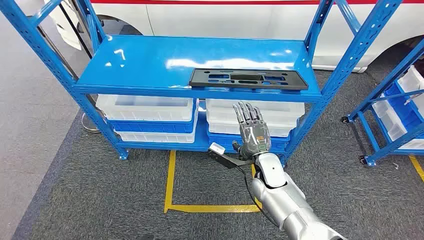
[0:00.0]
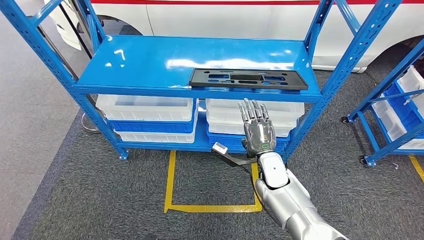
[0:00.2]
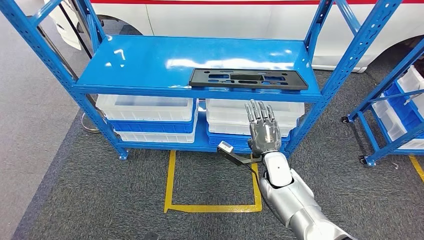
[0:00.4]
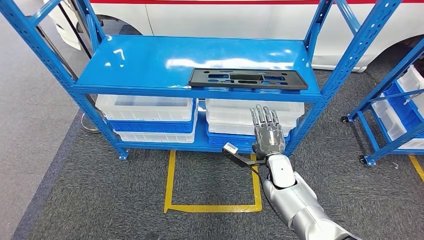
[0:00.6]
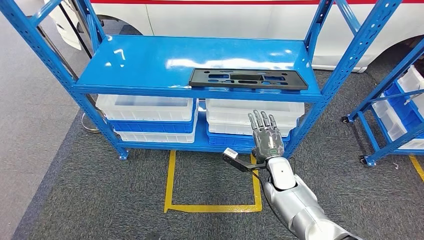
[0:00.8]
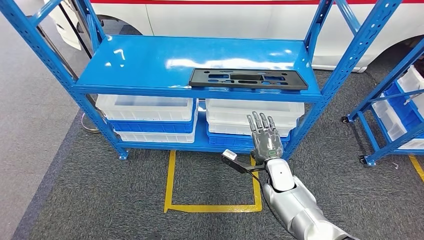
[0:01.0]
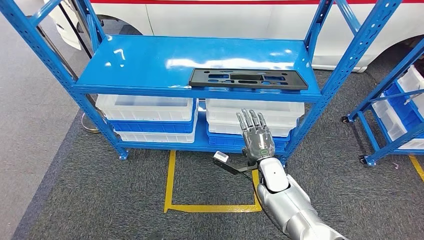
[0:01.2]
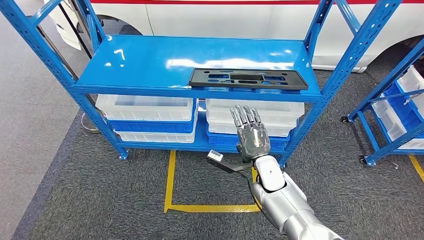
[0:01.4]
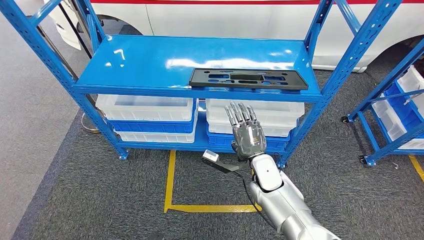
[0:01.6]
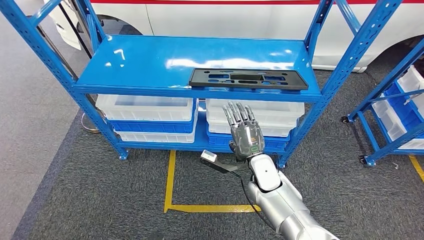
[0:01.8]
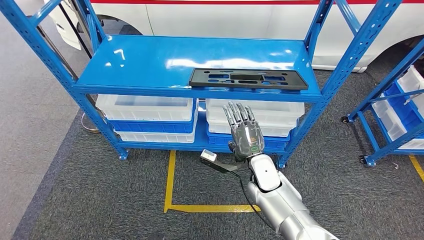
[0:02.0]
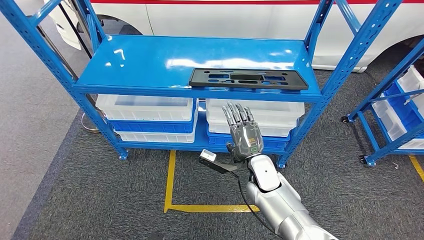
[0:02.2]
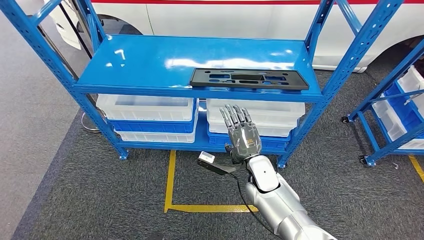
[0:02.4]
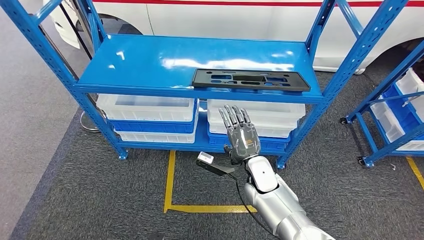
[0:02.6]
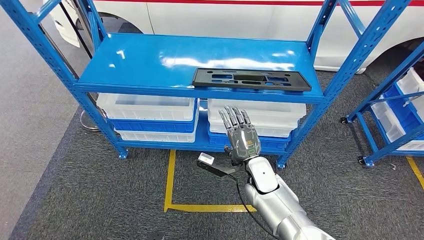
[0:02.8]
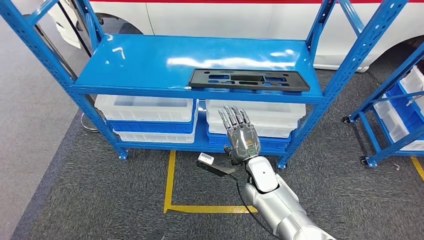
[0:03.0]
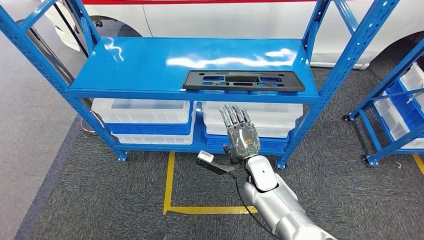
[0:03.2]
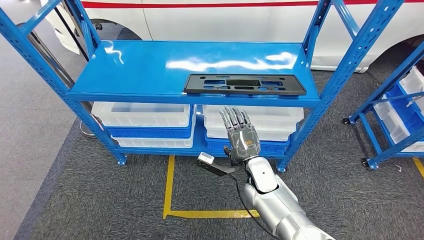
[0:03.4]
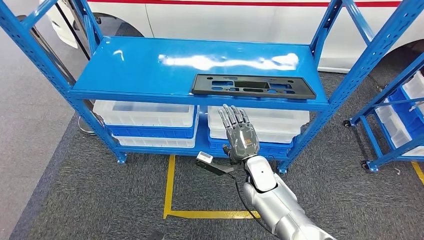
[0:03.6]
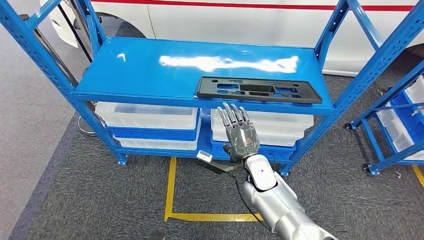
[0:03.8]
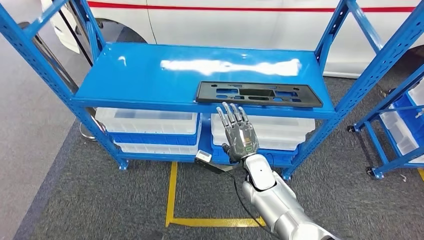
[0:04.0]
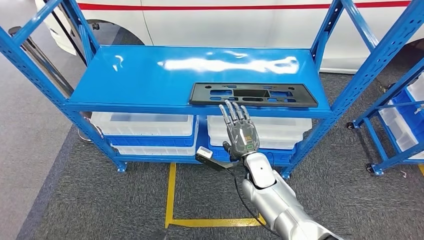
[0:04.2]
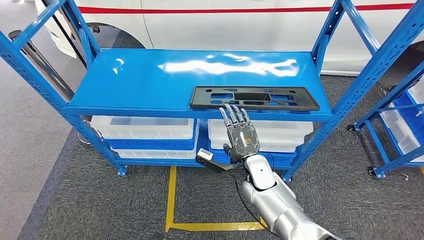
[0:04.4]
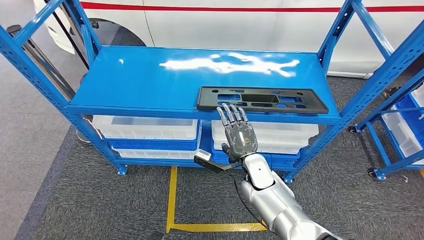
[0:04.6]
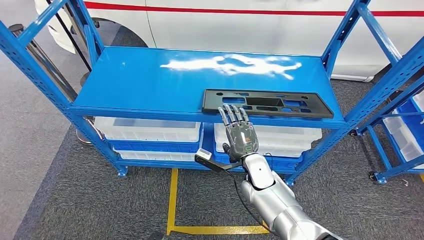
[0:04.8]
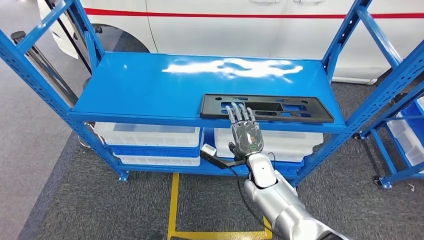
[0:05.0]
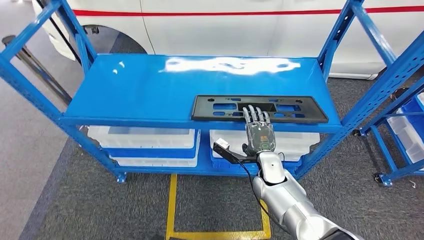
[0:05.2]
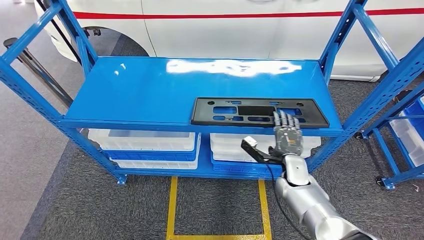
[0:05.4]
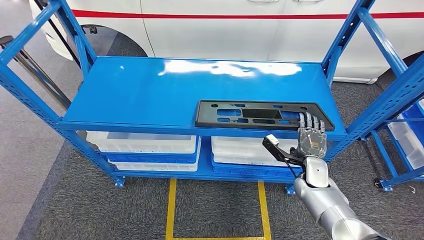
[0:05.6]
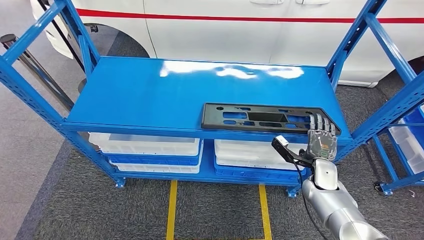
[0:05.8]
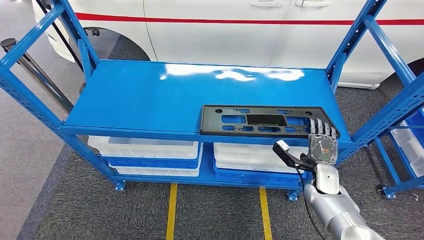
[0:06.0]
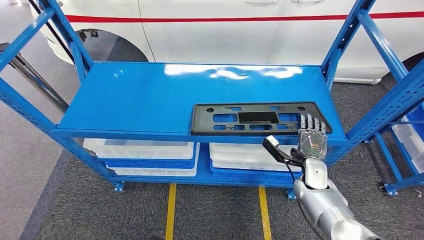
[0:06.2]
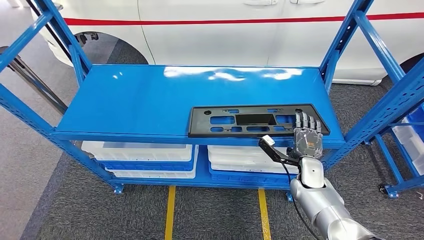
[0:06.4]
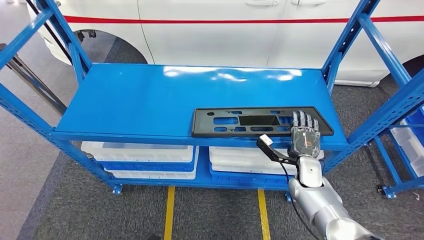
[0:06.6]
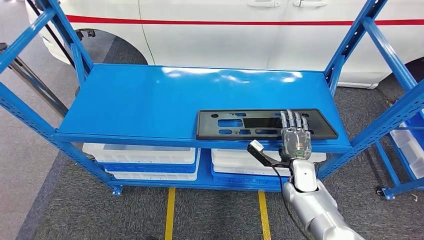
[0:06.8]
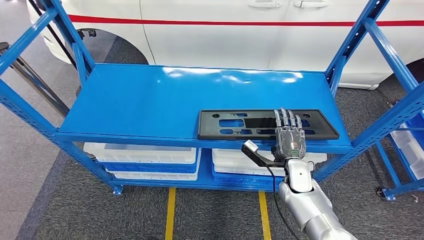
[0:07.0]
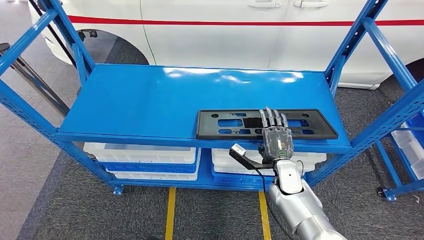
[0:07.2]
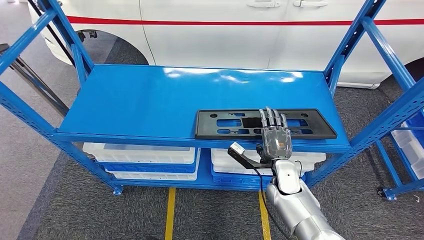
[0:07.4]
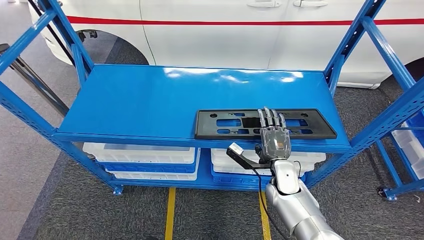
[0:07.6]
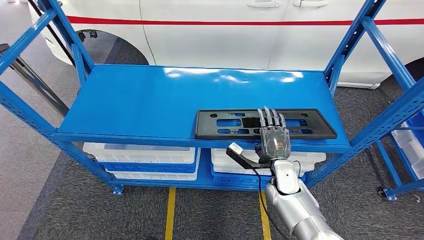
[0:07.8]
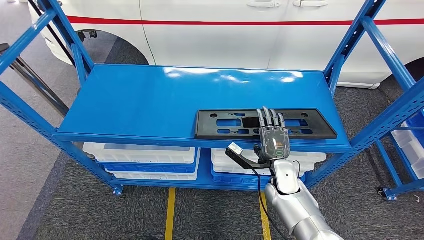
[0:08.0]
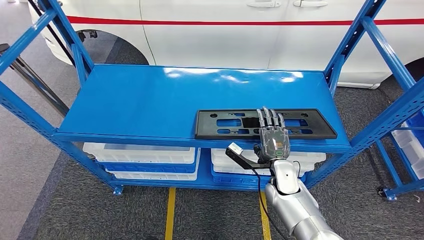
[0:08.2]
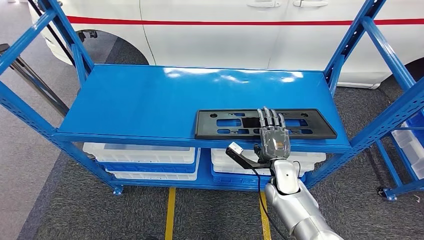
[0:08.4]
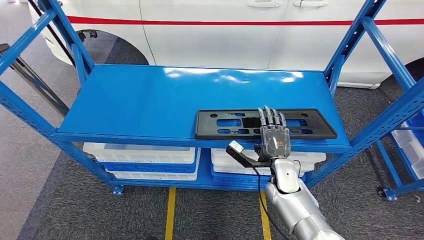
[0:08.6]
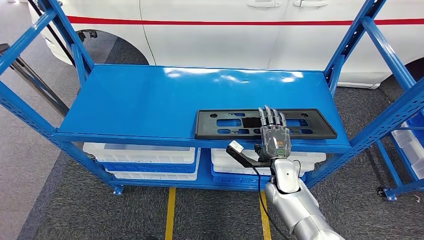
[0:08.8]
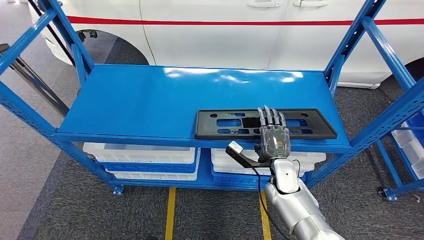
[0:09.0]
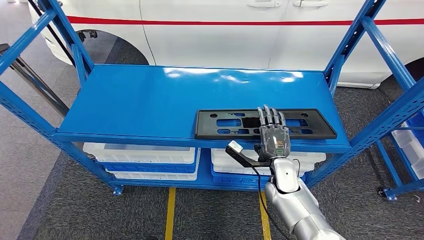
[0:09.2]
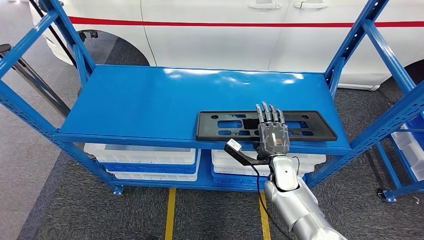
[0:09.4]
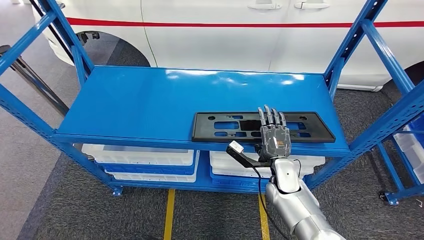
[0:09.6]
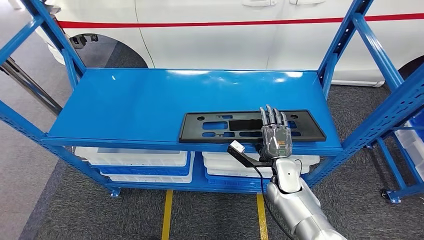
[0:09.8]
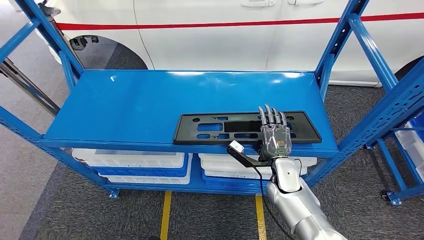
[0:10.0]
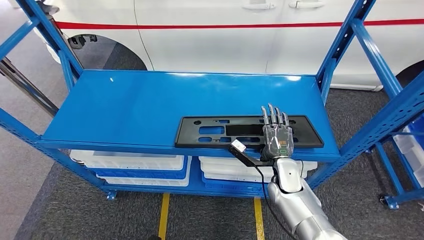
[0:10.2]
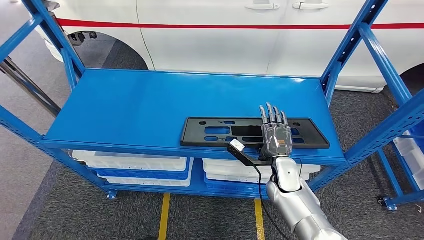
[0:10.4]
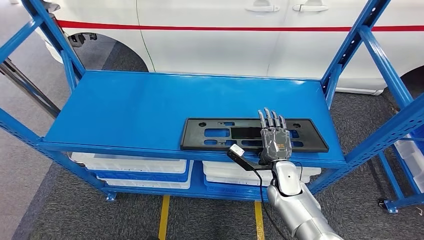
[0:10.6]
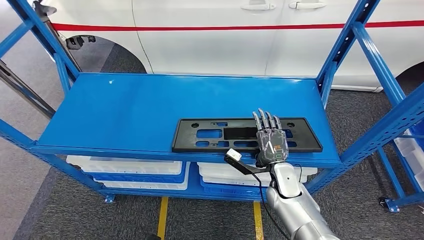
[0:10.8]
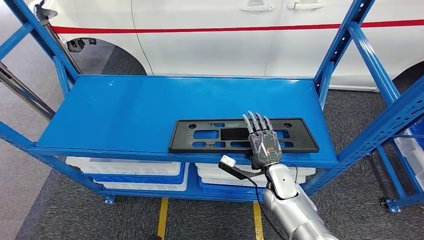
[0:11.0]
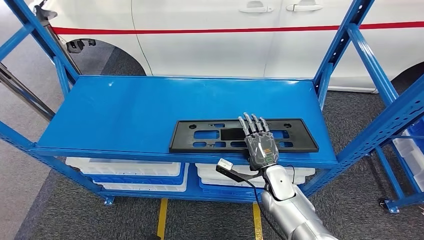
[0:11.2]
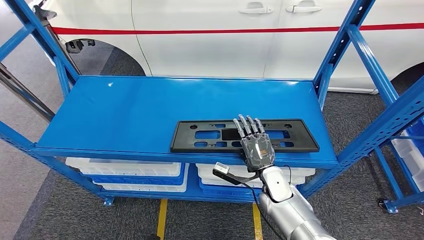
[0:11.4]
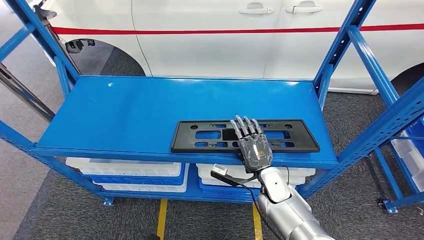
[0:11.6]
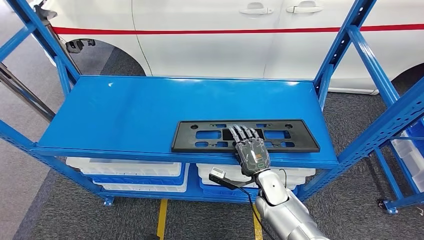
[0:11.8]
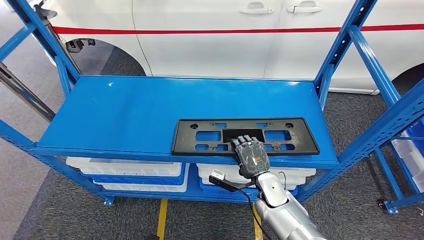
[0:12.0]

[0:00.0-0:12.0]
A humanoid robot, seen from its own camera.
0:01.6 to 0:03.0: The hands stay close to where they were, moving slightly.
0:07.6 to 0:09.0: The two hands keep their place.

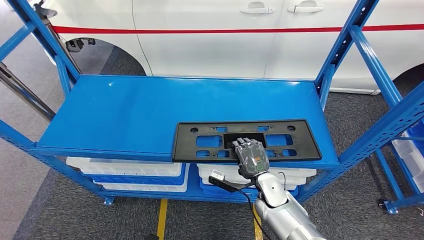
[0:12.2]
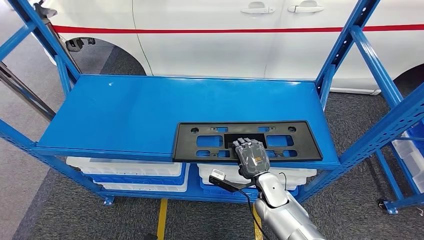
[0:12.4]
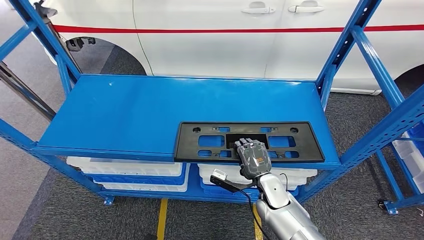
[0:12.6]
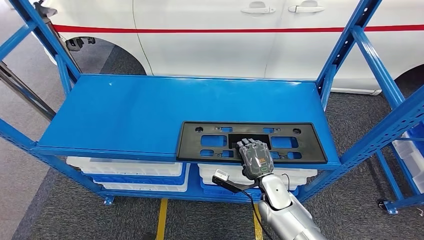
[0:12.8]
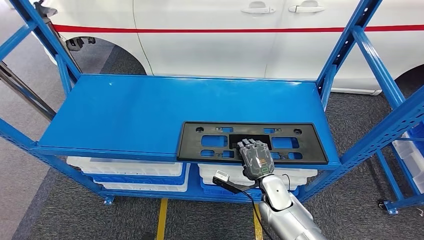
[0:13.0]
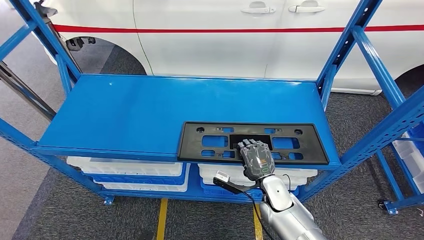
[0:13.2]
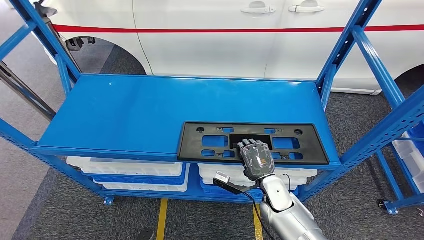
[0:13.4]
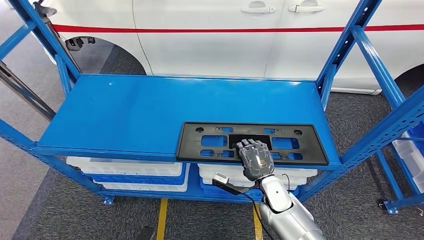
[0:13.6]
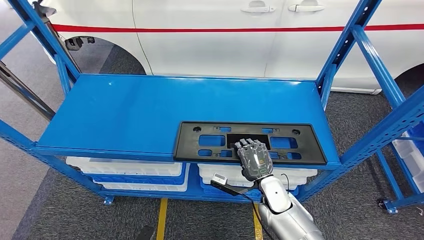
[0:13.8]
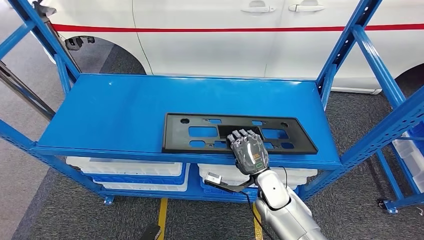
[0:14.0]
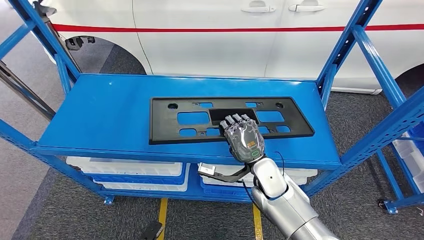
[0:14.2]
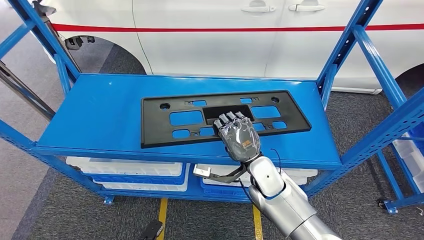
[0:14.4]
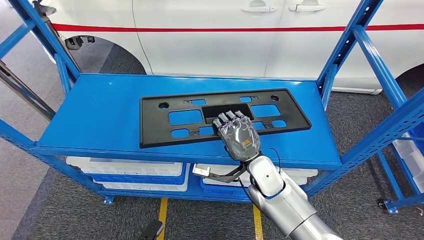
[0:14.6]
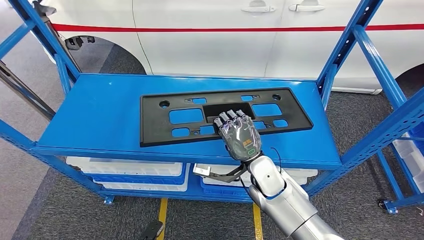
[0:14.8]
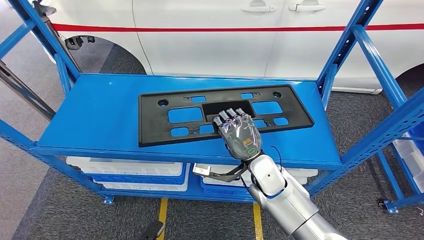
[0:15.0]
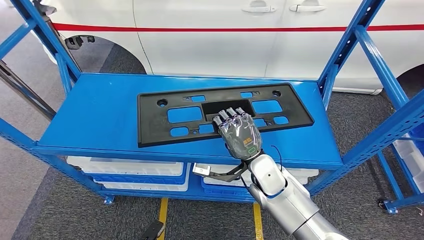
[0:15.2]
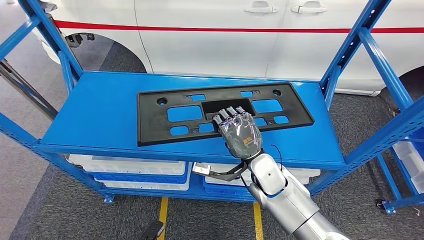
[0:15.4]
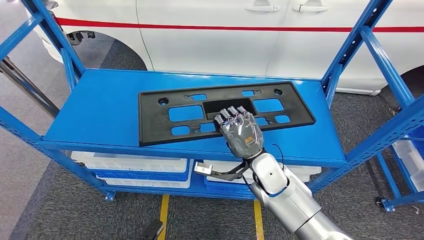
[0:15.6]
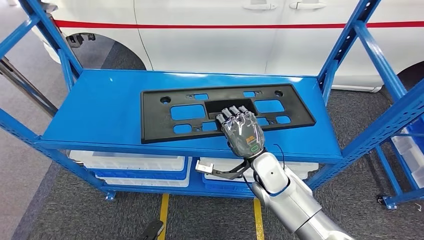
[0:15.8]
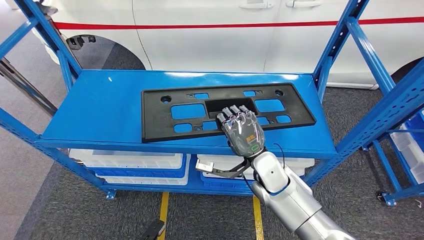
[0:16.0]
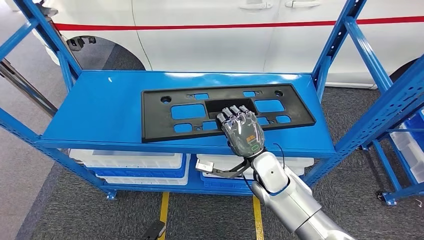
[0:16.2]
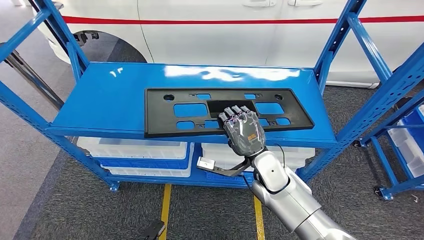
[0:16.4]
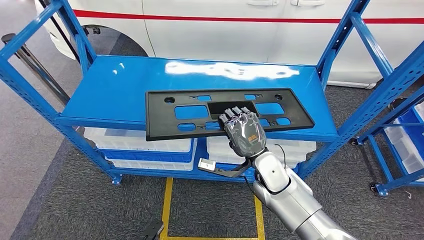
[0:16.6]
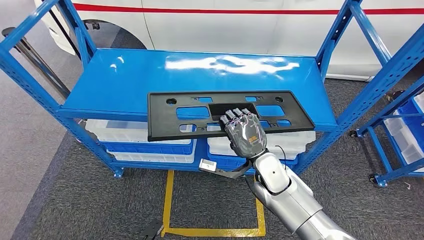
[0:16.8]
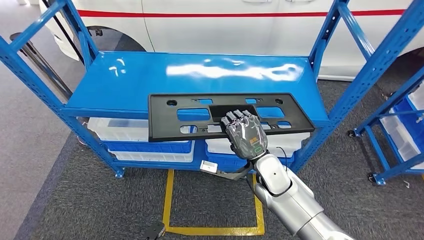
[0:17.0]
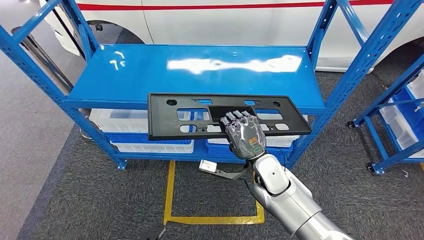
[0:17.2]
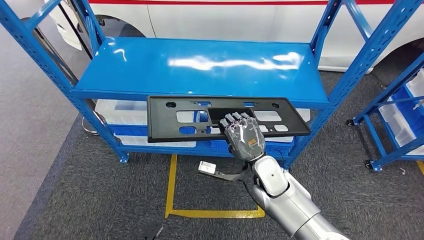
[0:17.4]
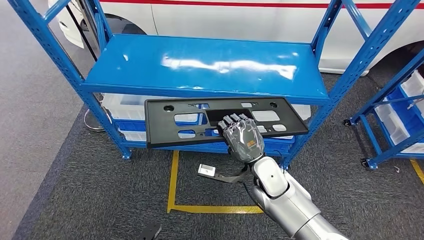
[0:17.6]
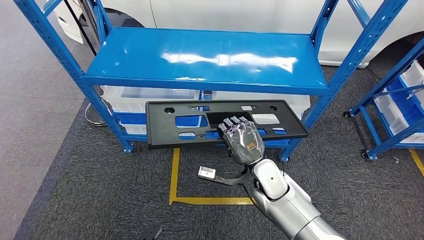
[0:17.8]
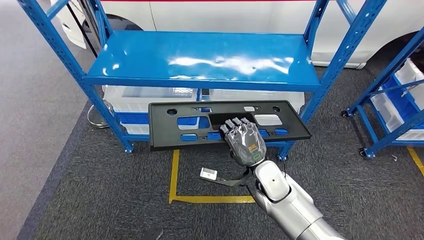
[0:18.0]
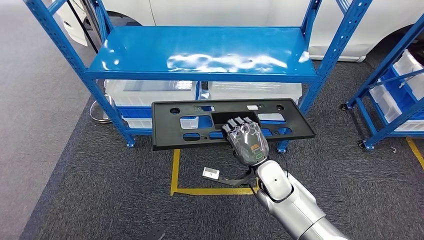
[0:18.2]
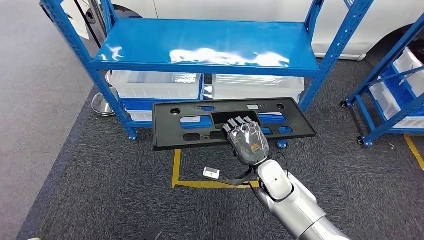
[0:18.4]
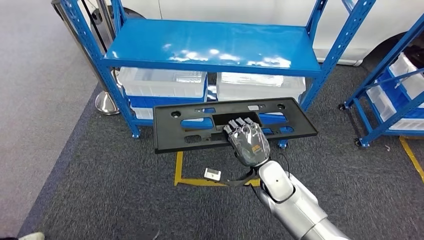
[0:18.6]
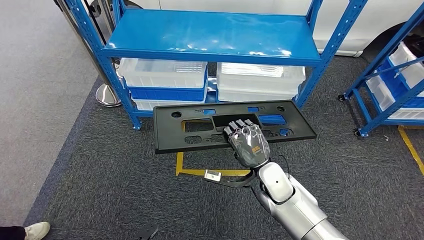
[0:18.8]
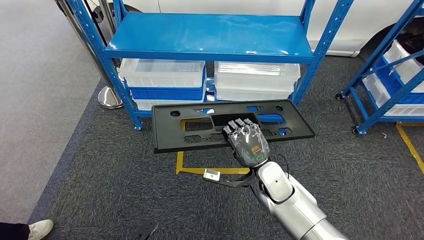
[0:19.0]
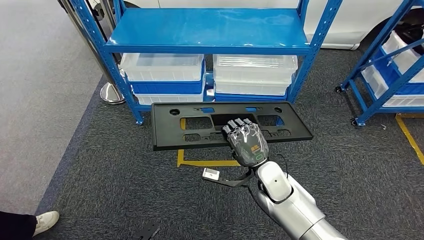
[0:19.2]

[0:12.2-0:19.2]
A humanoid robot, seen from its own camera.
Step, 0:12.2 to 0:14.8: Pick up the large material from the shelf.
0:12.2 to 0:13.6: There are only small adjustments of the hands.
0:13.6 to 0:15.0: The right hand shifts about 10 cm upward.
